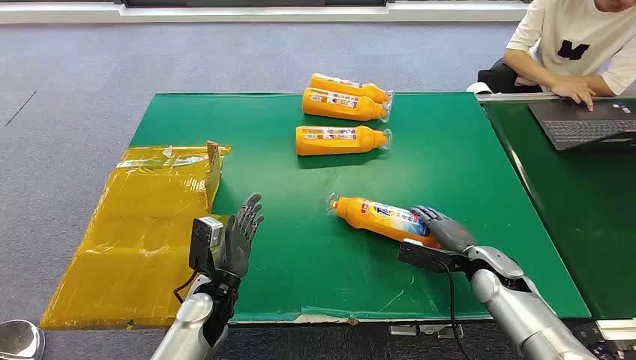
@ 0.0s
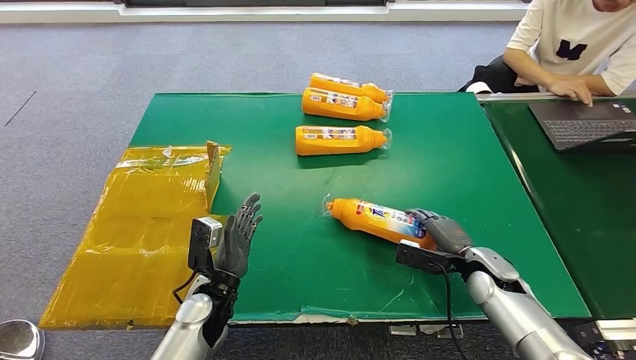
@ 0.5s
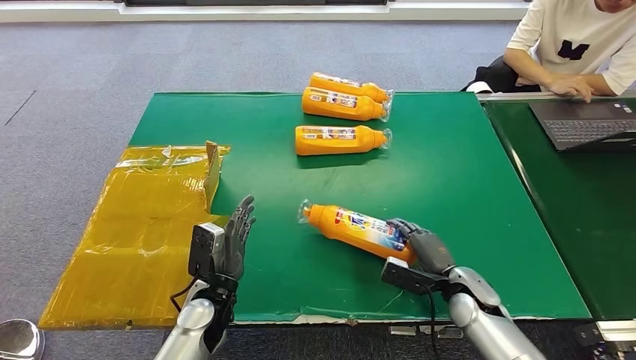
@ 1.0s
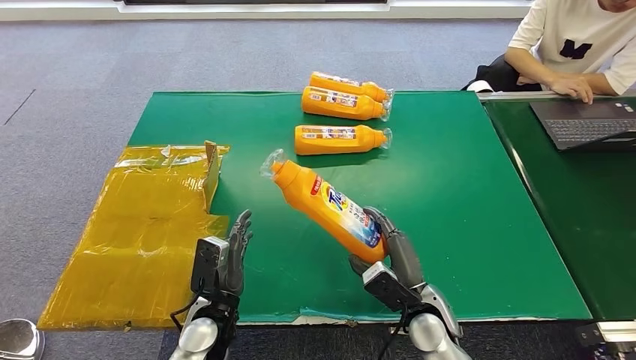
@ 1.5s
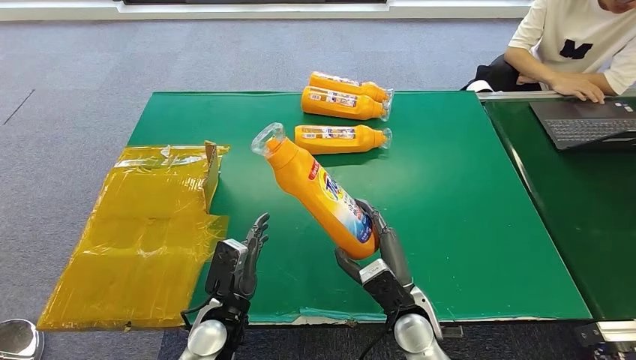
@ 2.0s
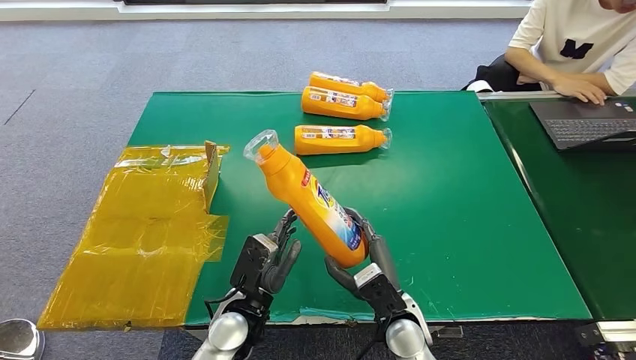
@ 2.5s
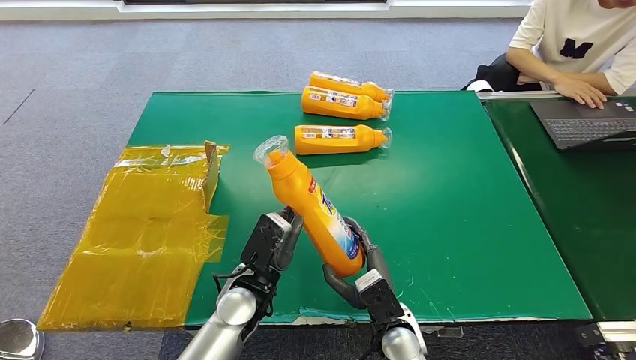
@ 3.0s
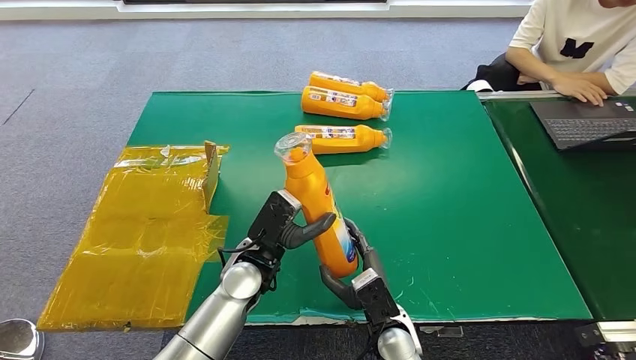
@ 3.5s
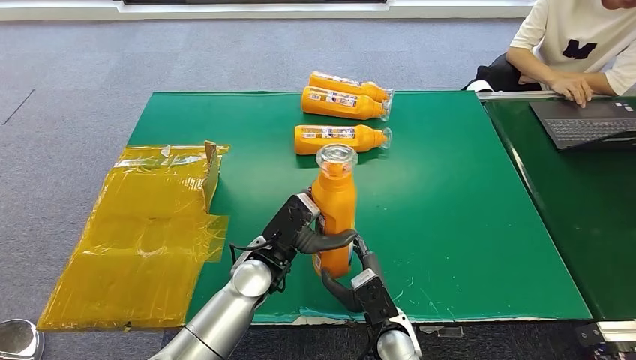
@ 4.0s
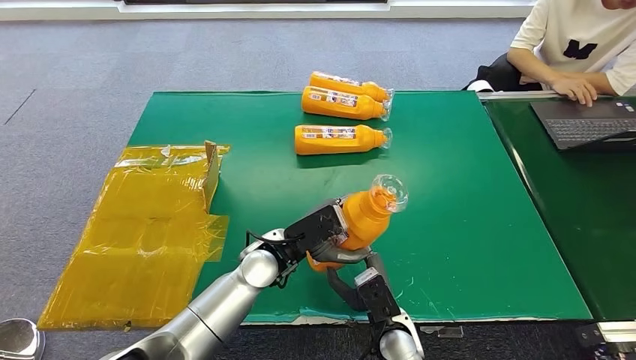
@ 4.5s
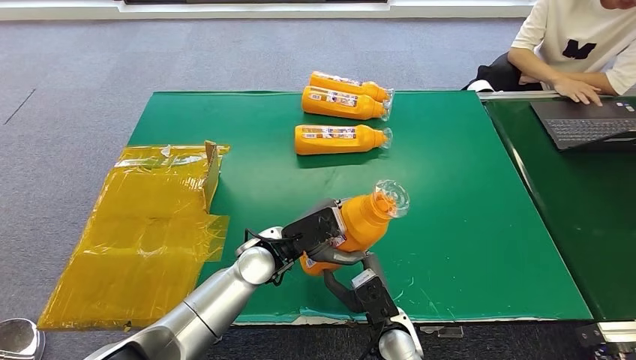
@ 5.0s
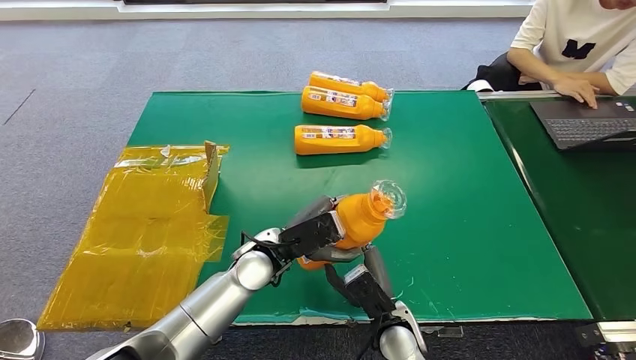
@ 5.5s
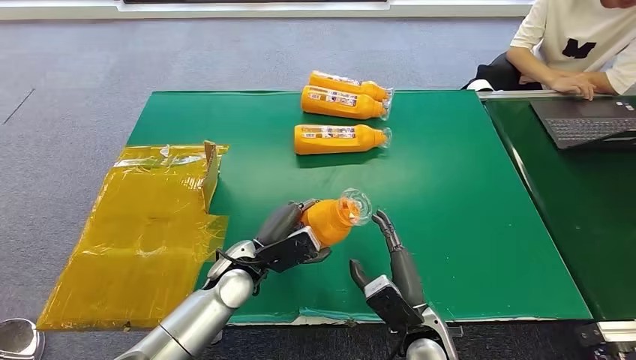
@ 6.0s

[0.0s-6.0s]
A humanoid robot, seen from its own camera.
Step, 0.0s to 1.5s: Pick up the bottle from the table.
Step, 2.0s to 5.5s: Turn the bottle to the front side.
2.0s to 4.0s: The right hand ends up some 5 cm from where it was; the left hand moves forward, upward and to the right, roughly 15 cm.
4.0s to 6.0s: The left hand ends up roughly 5 cm from where it was. The right hand shifts about 5 cm to the right.

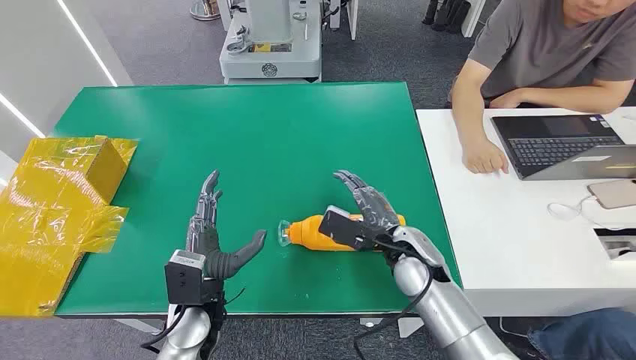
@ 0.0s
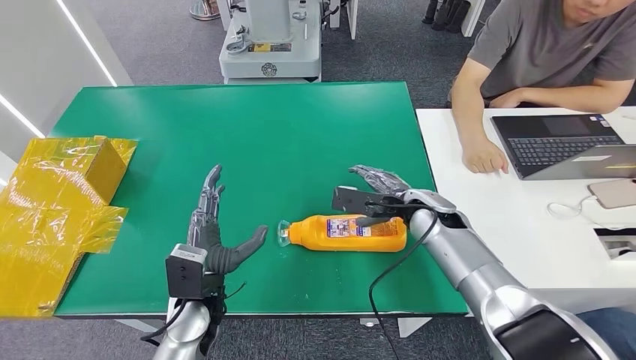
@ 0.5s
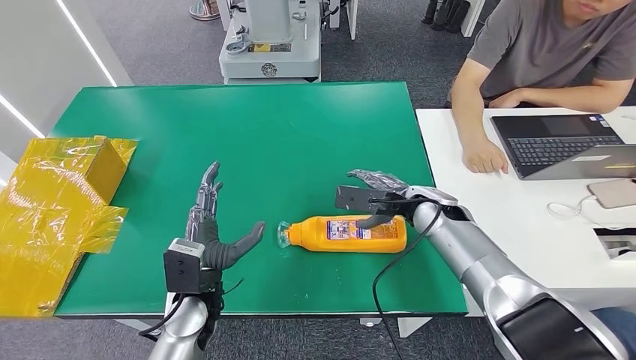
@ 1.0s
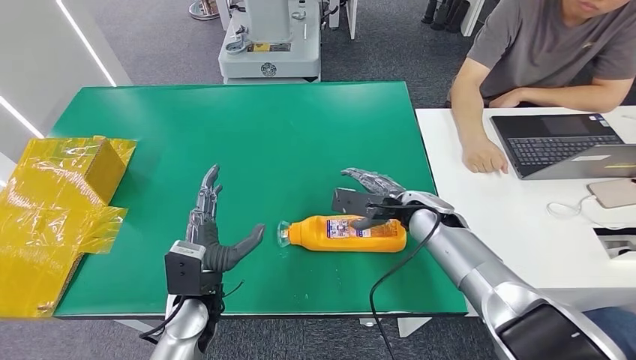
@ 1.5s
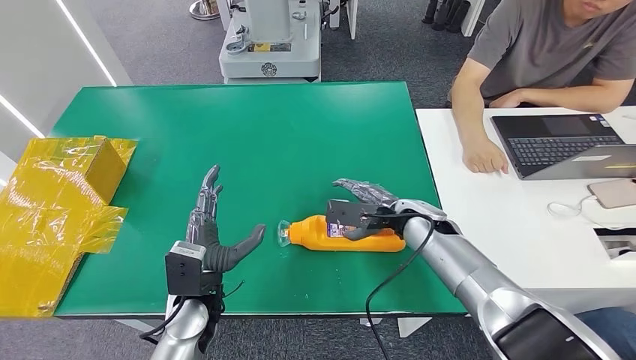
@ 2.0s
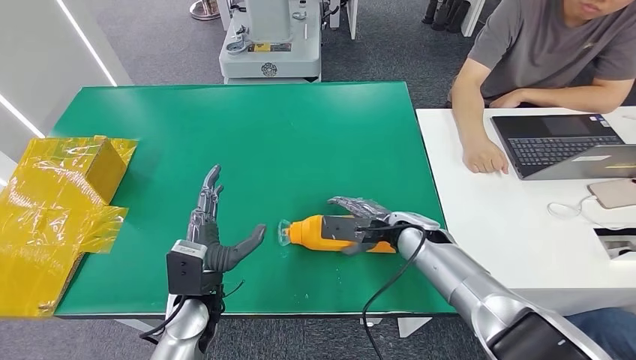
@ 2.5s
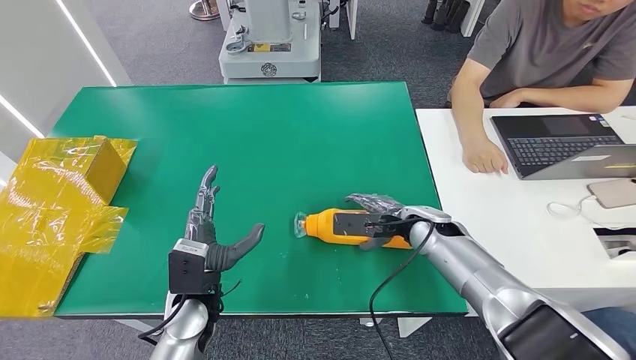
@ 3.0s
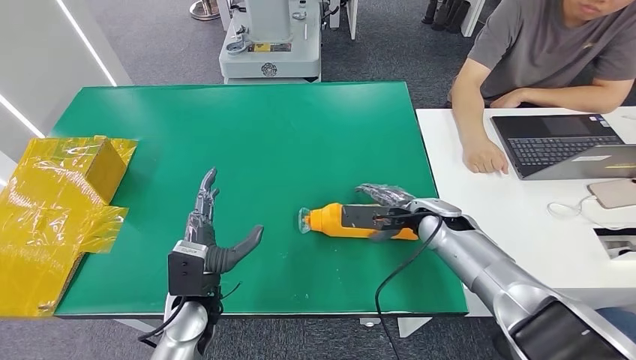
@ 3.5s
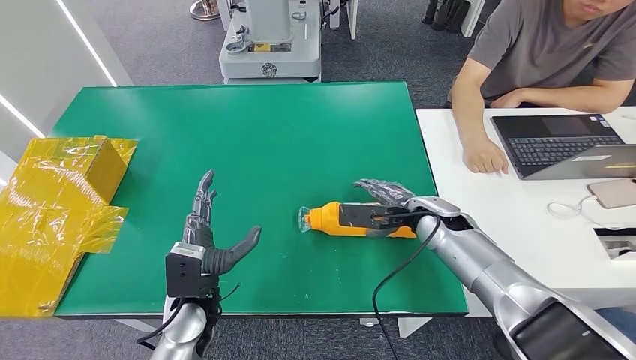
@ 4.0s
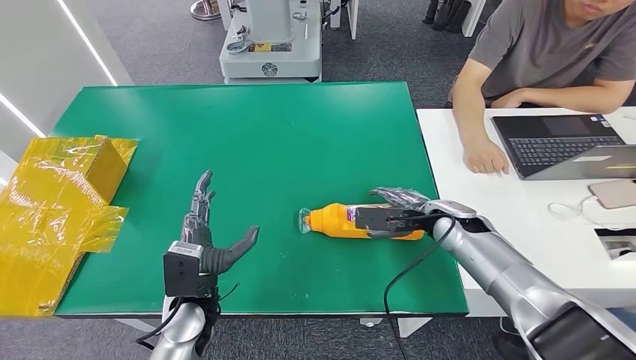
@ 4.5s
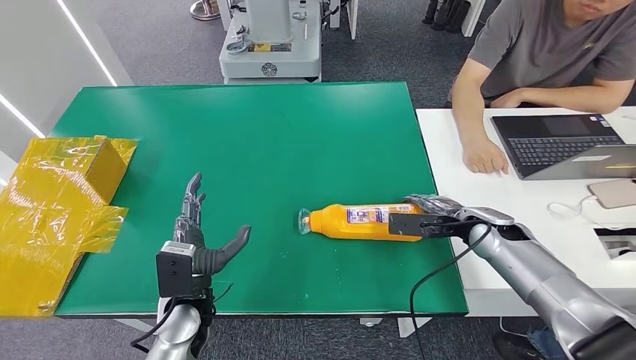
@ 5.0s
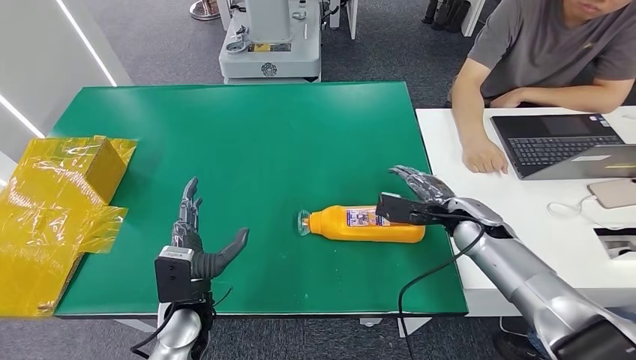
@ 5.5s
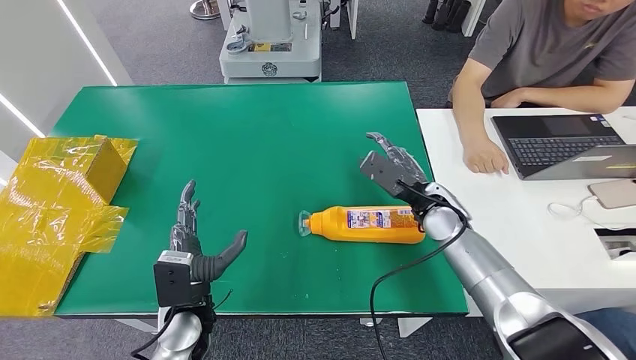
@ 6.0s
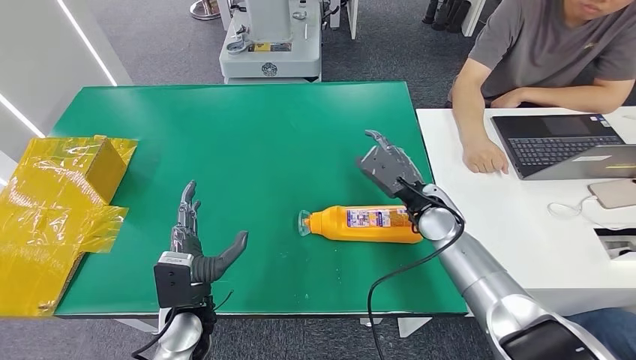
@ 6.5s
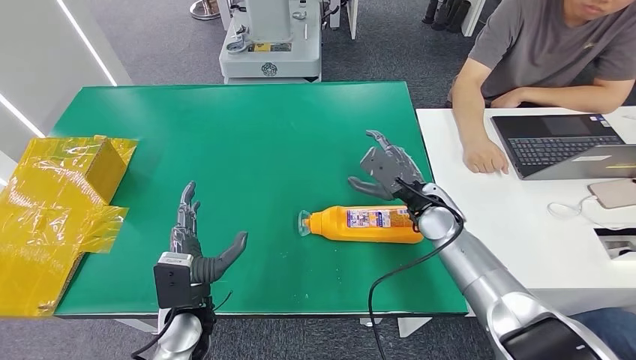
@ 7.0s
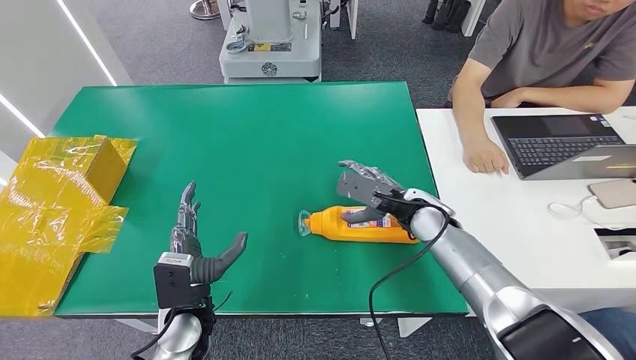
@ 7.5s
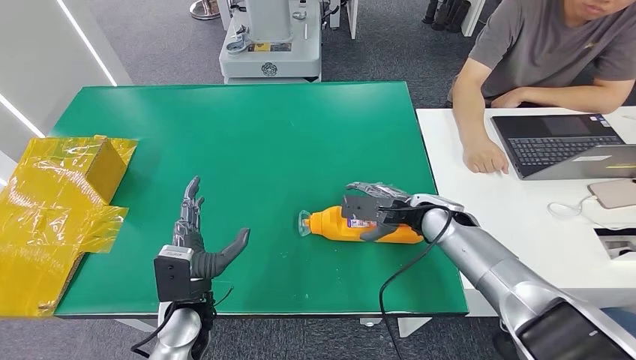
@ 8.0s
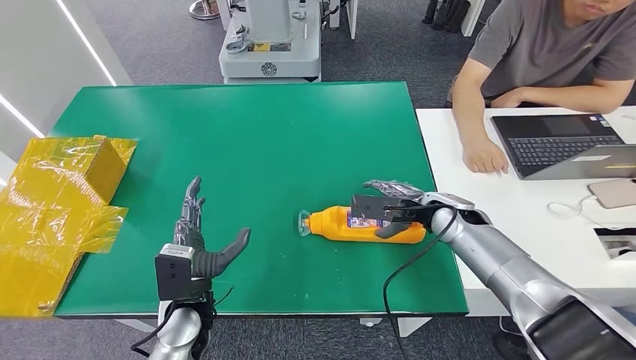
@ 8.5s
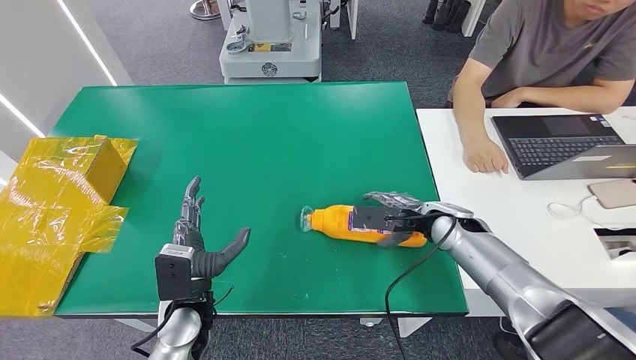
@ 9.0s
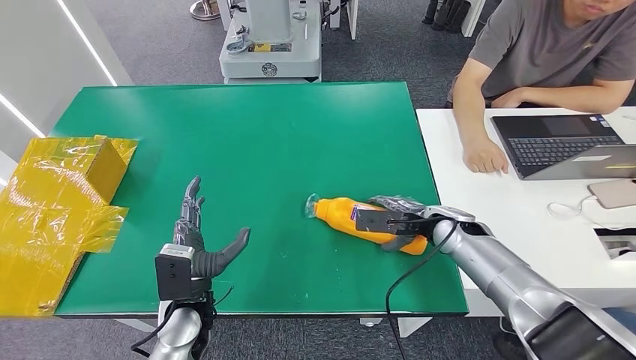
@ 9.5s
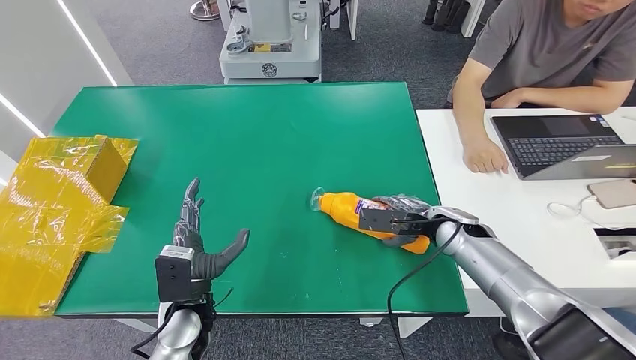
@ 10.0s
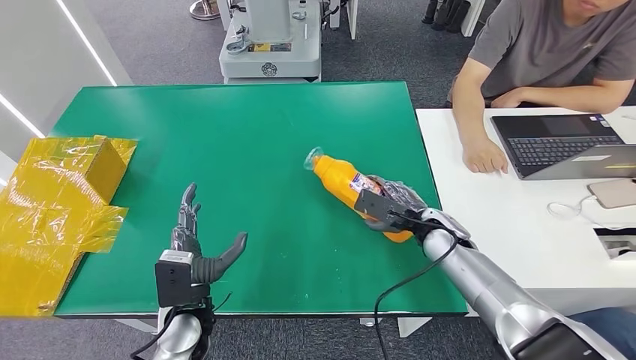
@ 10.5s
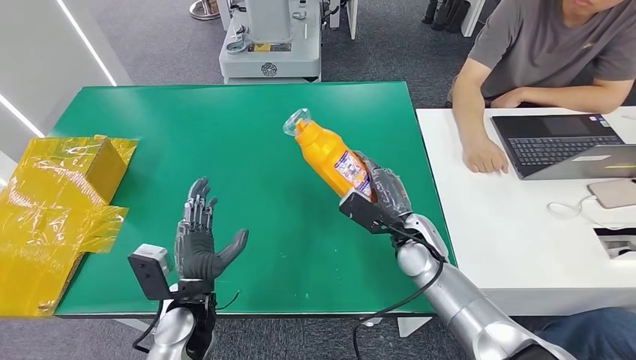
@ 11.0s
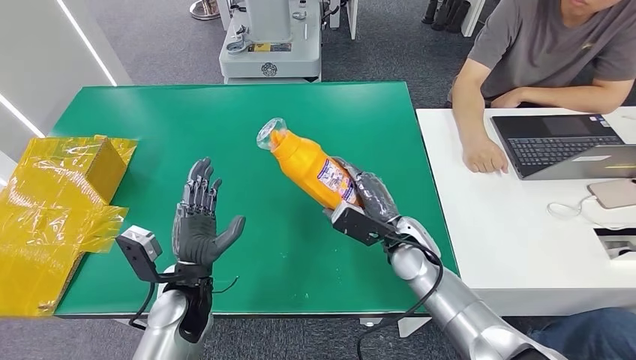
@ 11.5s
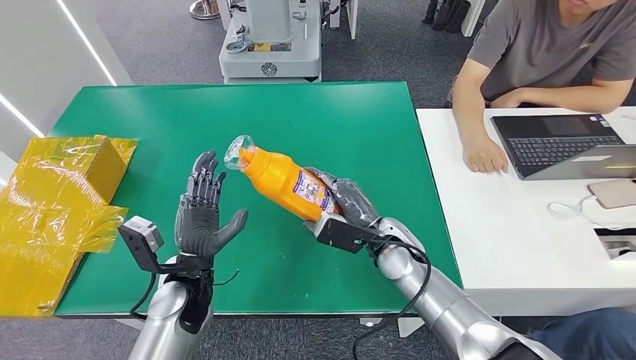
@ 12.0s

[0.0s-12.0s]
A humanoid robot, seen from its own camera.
2.0s to 4.0s: The hands move only a little.
4.0s to 6.0s: The right hand moves some 10 cm to the right and comes back.
8.0s to 10.0s: The right hand changes place by some 5 cm.
10.0s to 12.0s: The right hand heads to the left, covering approximately 15 cm.

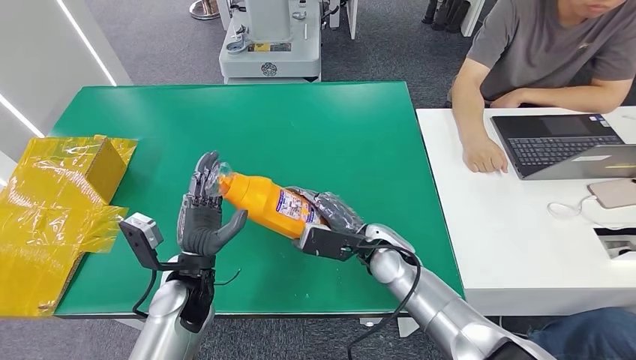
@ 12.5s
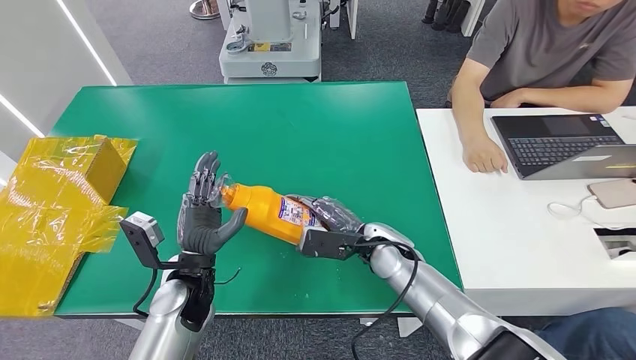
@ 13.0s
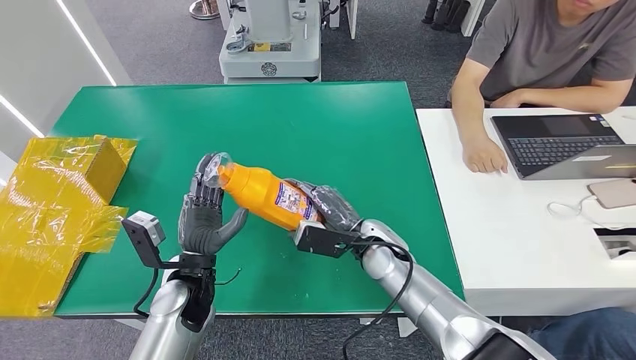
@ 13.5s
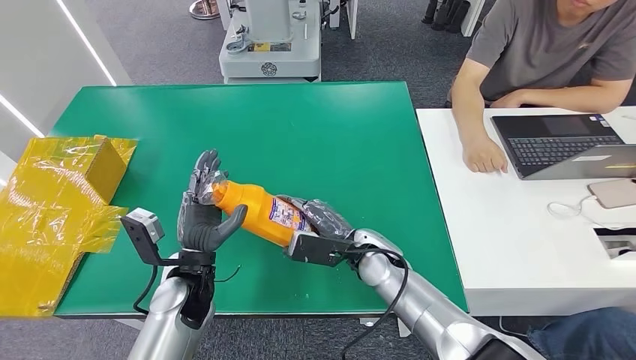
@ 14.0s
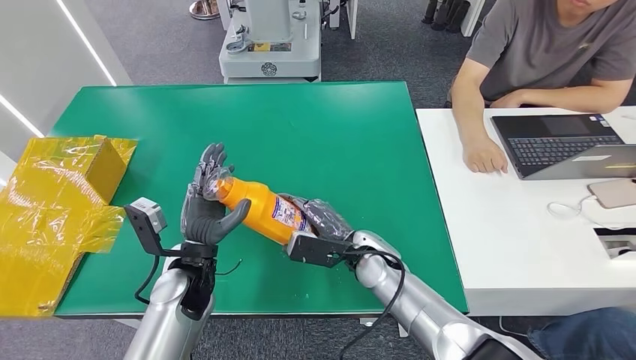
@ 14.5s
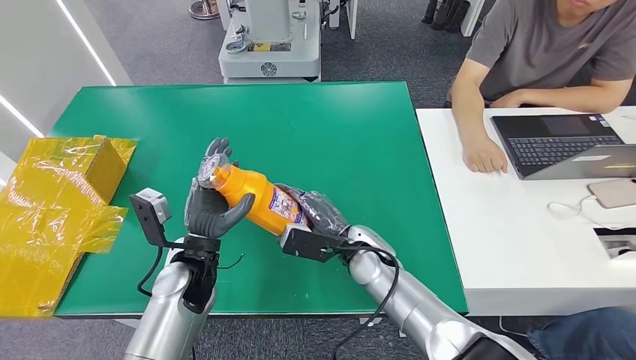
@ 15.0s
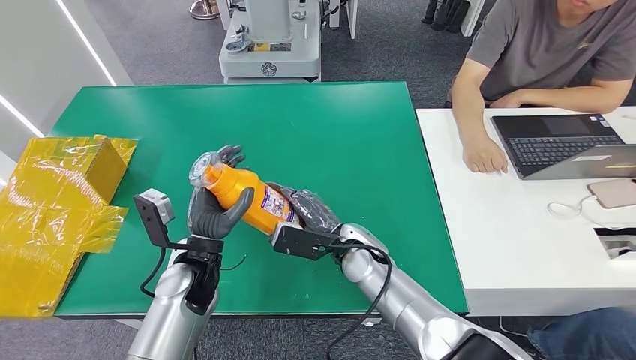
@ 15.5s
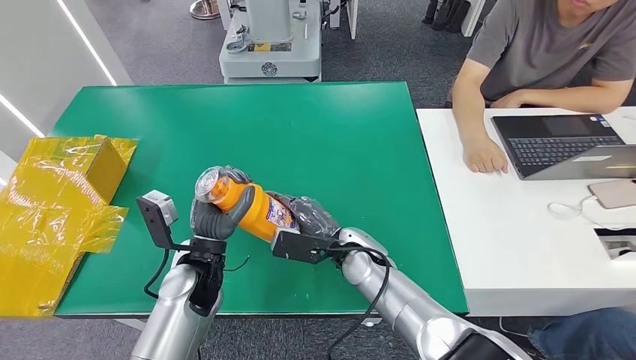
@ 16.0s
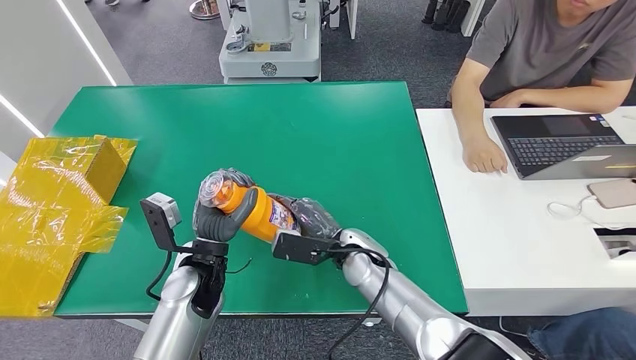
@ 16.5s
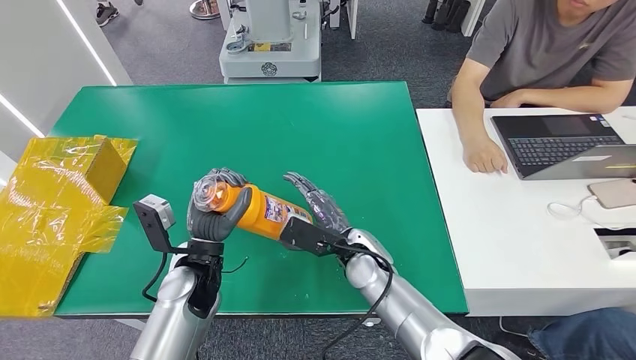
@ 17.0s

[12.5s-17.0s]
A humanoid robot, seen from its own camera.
12.5s to 17.0s: The hands stay close to where they were, moving slightly.
